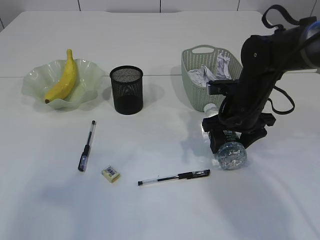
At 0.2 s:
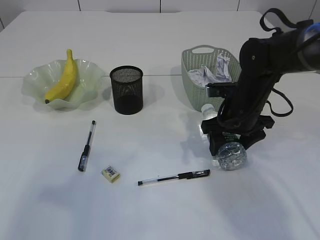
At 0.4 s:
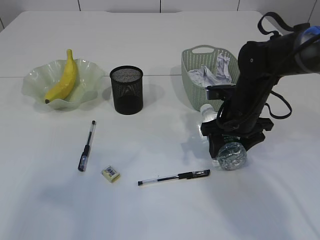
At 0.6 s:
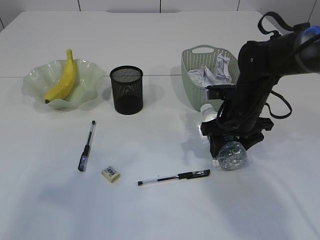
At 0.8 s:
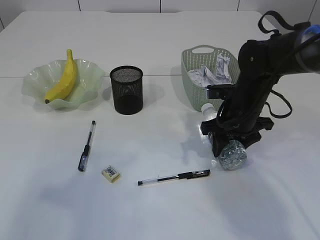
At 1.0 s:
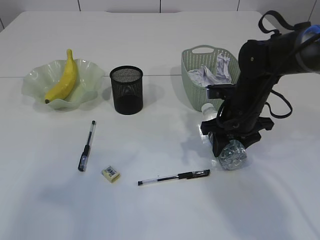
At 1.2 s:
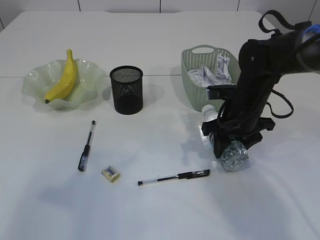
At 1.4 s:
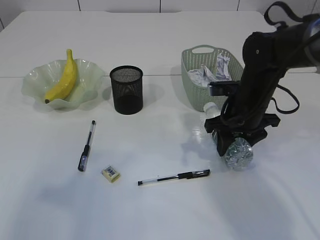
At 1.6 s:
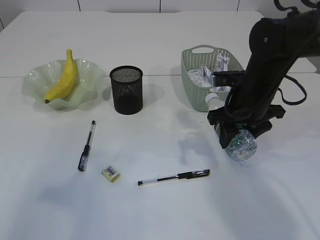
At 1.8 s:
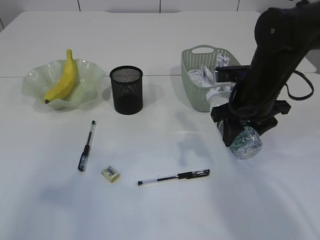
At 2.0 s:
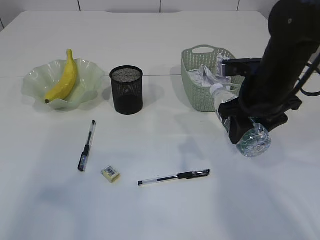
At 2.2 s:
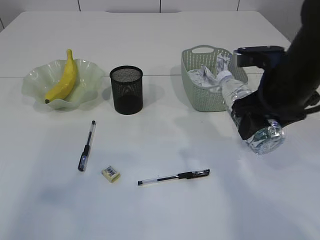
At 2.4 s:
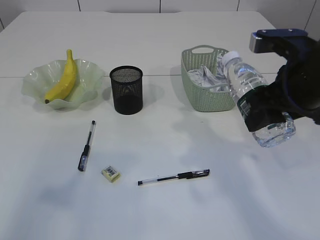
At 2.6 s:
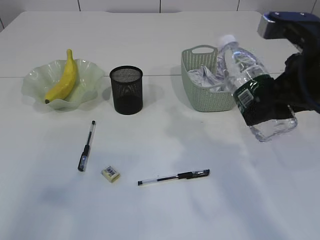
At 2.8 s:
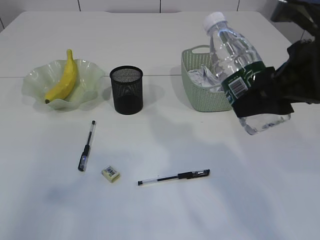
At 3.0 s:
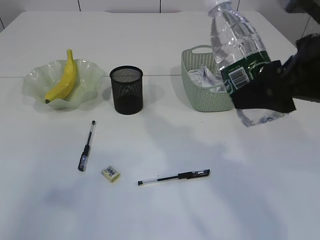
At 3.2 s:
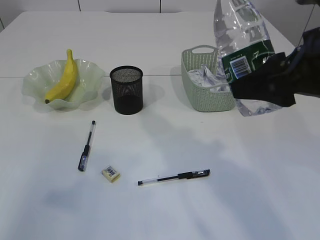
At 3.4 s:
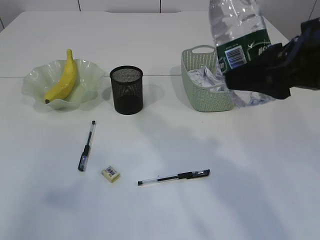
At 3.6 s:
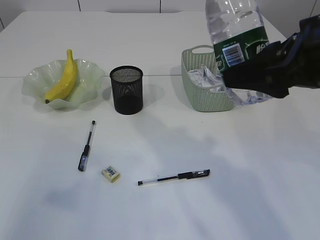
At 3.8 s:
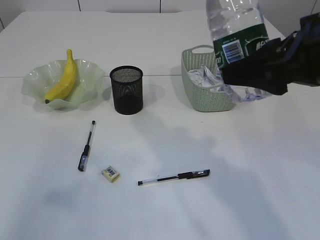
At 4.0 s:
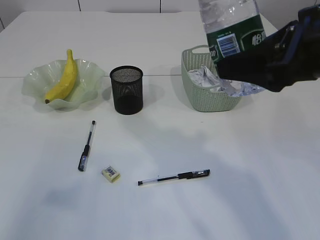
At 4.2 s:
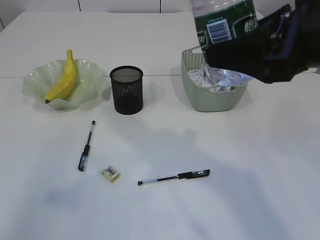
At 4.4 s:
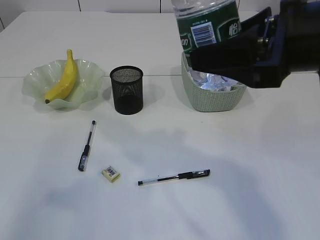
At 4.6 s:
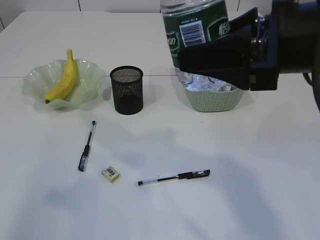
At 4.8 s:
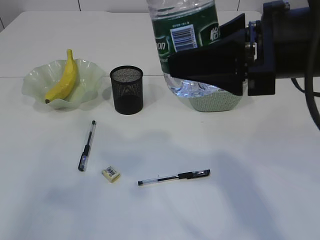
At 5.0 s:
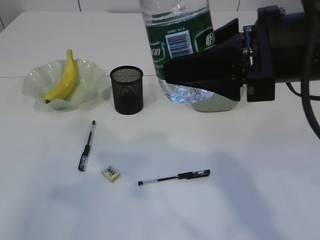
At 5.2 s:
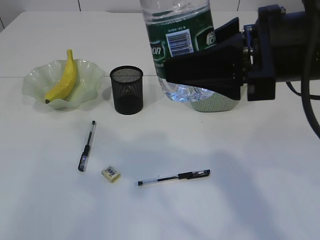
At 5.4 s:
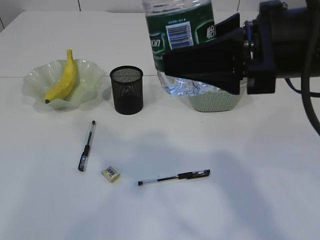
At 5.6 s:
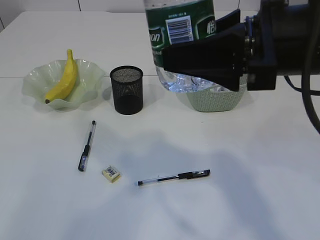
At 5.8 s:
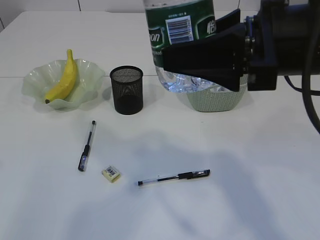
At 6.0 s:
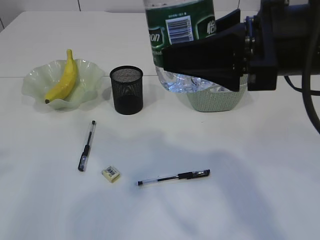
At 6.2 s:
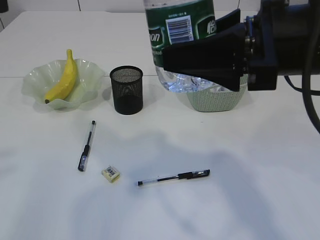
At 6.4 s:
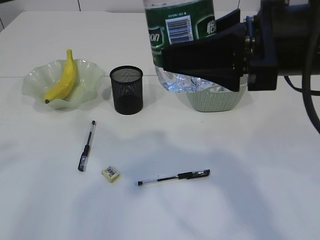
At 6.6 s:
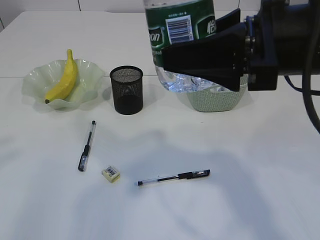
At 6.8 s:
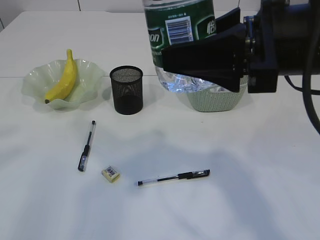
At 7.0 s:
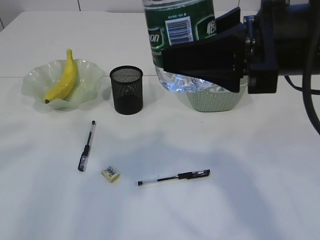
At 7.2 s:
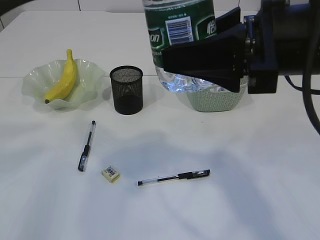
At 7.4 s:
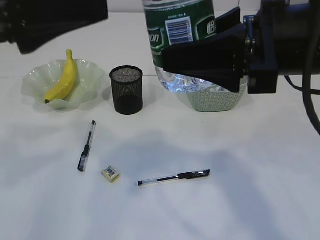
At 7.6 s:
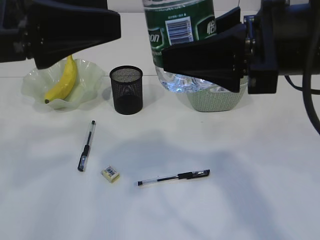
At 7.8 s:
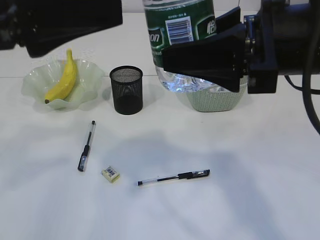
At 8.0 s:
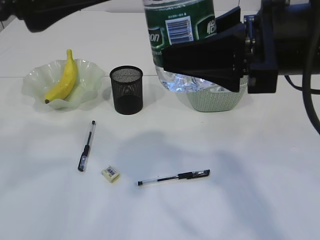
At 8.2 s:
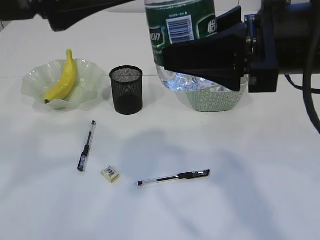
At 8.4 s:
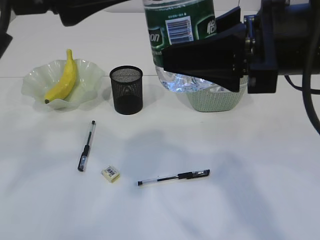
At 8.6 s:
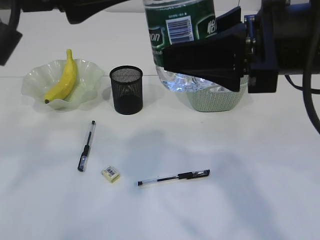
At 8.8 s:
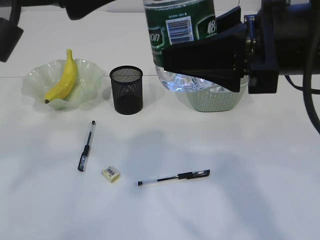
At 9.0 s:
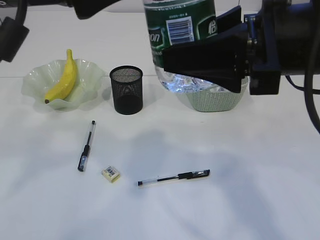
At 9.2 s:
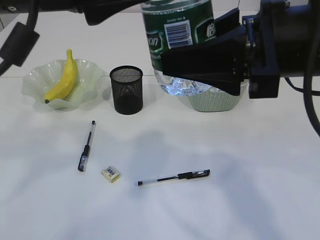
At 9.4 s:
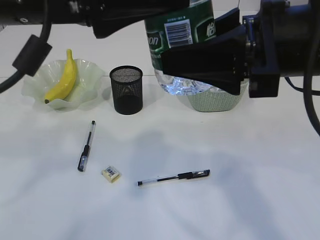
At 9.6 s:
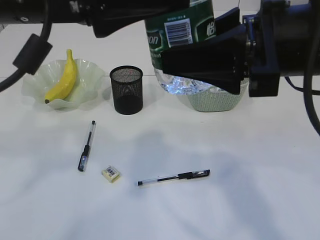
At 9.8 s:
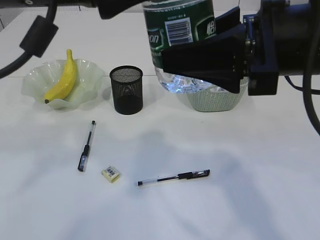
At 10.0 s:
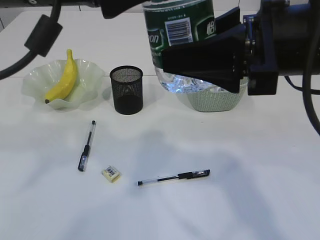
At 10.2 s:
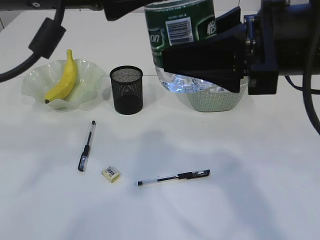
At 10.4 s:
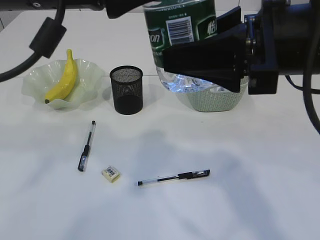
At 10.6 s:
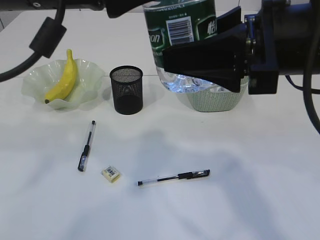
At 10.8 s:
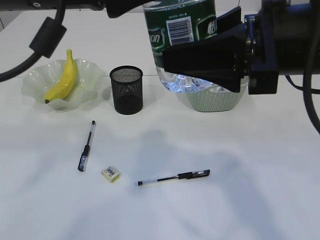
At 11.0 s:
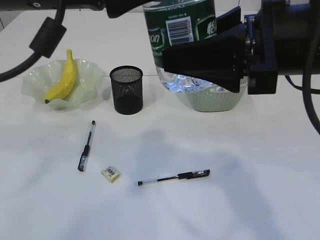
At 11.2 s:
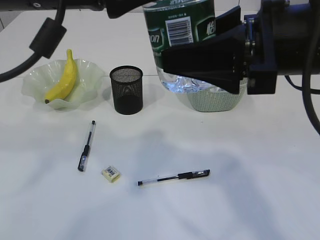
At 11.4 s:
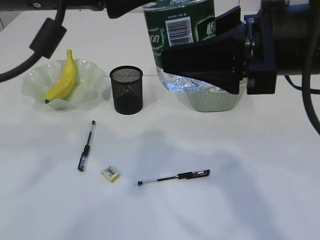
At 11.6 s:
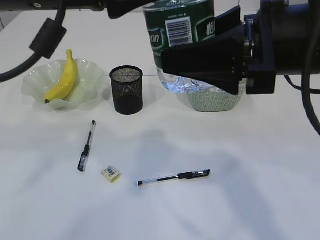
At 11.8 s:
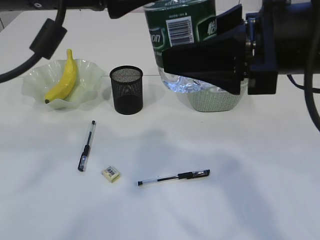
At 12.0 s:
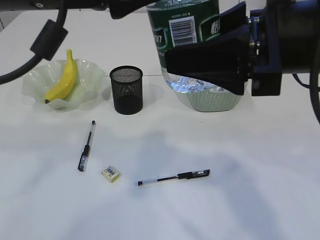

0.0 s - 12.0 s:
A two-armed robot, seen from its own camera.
Step, 0.0 s - 2.0 s: Pick up the bottle with the right arm.
0.0 s - 1.6 s: There are only small adjustments of the grippers.
1.6 s - 3.0 s: The right gripper heads backward and upward, covering about 20 cm.
4.4 s - 6.0 s: The left gripper travels to the right by approximately 5 cm.
6.0 s - 7.6 s: The left gripper shifts some 10 cm forward, downward and to the right, and opens.
7.6 s - 9.0 s: The left gripper goes some 5 cm to the right.
9.0 s - 10.4 s: The grippers make only small movements.
10.4 s - 12.0 s: Both grippers stay put.

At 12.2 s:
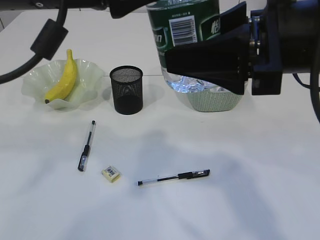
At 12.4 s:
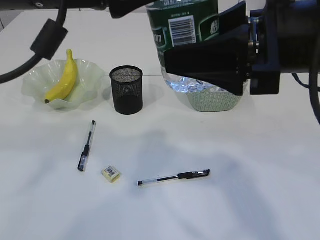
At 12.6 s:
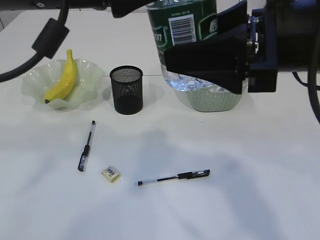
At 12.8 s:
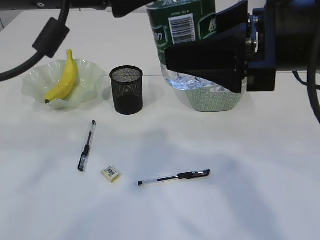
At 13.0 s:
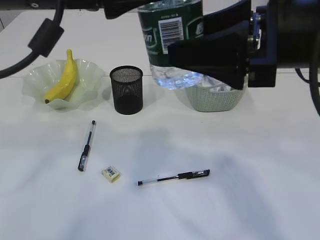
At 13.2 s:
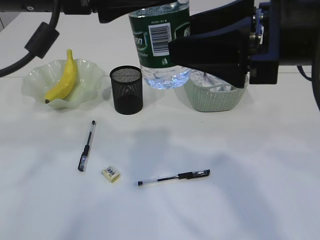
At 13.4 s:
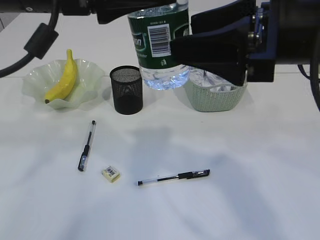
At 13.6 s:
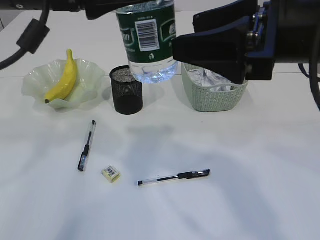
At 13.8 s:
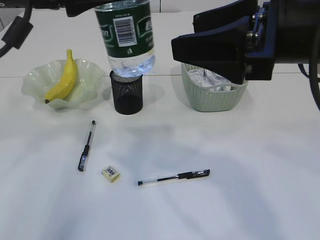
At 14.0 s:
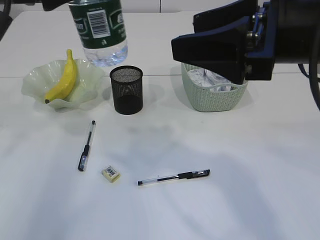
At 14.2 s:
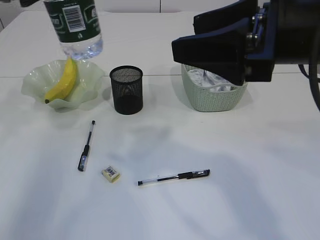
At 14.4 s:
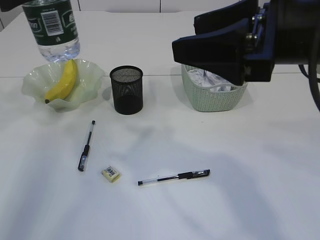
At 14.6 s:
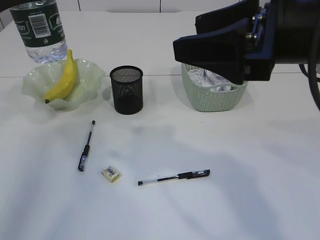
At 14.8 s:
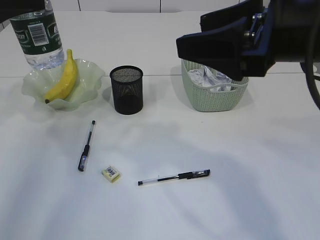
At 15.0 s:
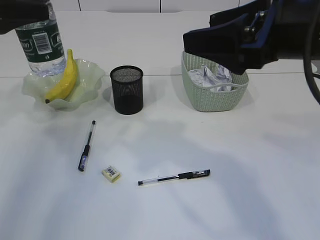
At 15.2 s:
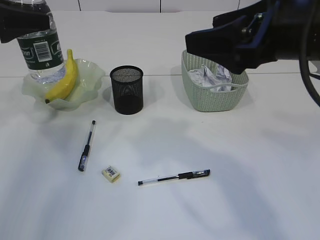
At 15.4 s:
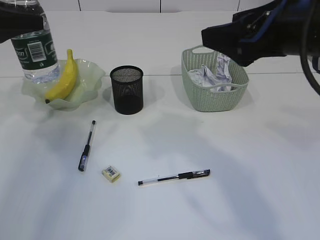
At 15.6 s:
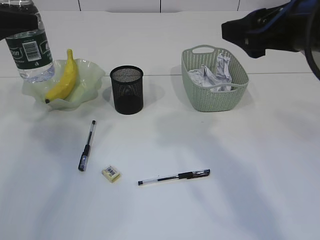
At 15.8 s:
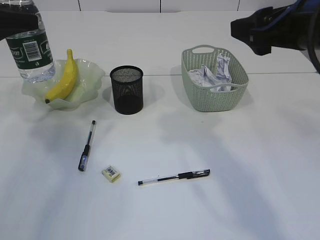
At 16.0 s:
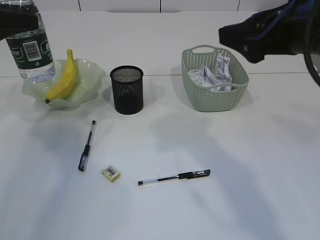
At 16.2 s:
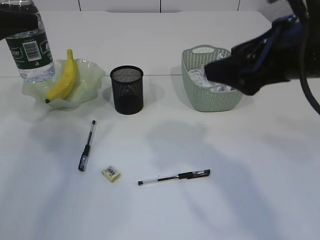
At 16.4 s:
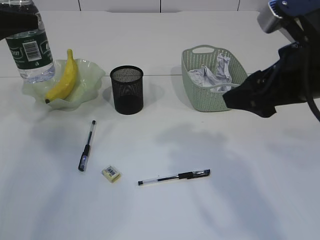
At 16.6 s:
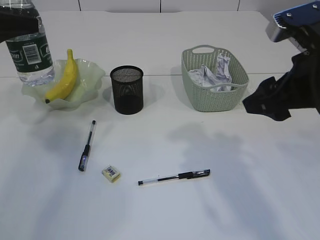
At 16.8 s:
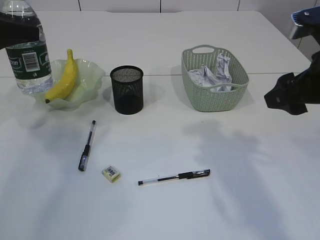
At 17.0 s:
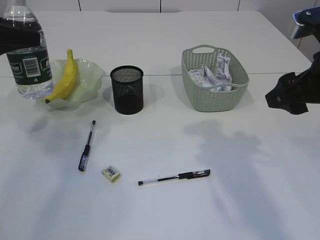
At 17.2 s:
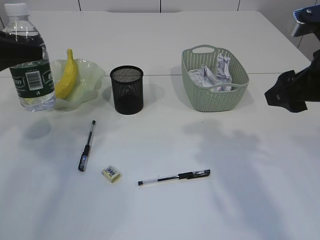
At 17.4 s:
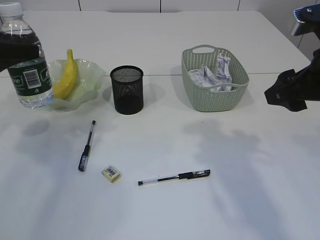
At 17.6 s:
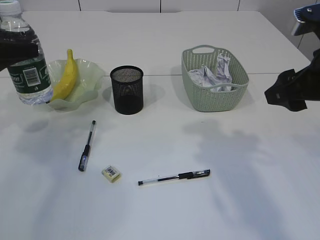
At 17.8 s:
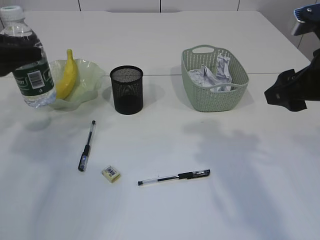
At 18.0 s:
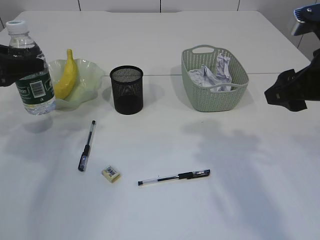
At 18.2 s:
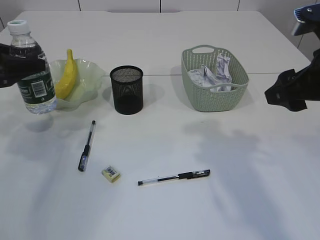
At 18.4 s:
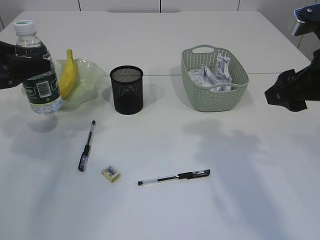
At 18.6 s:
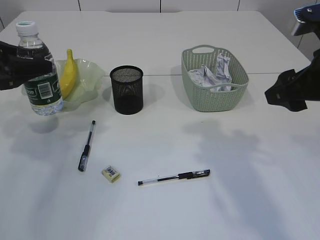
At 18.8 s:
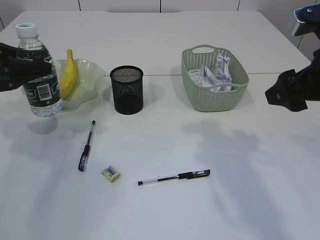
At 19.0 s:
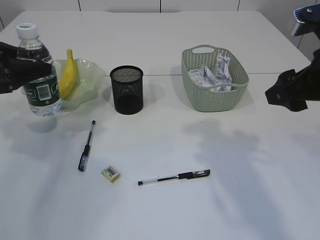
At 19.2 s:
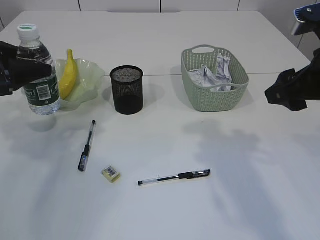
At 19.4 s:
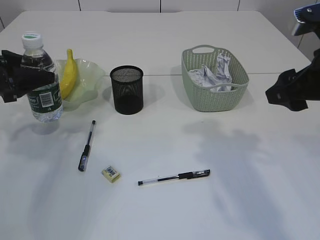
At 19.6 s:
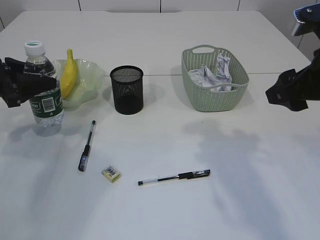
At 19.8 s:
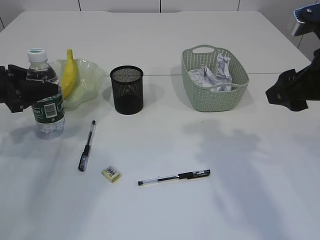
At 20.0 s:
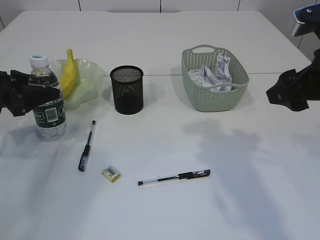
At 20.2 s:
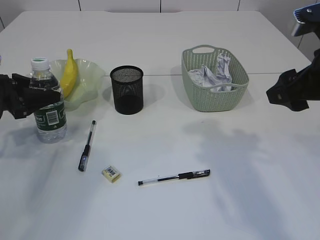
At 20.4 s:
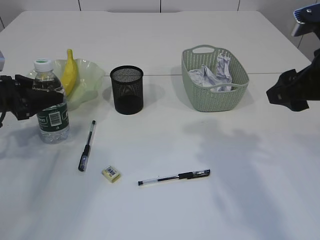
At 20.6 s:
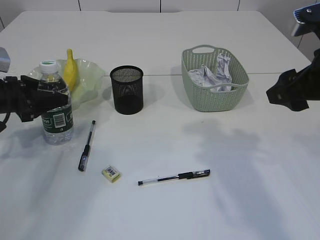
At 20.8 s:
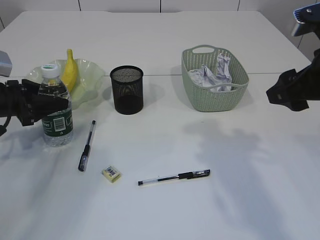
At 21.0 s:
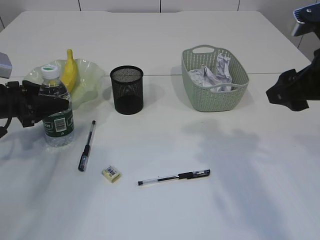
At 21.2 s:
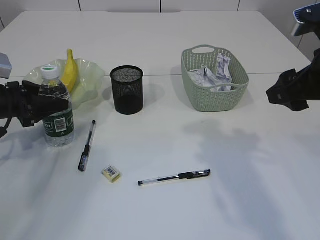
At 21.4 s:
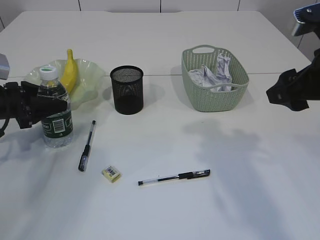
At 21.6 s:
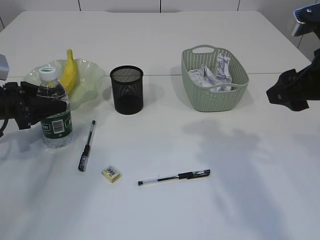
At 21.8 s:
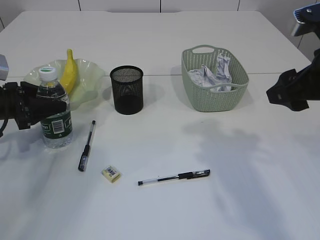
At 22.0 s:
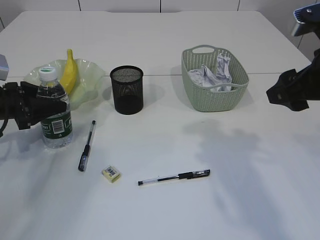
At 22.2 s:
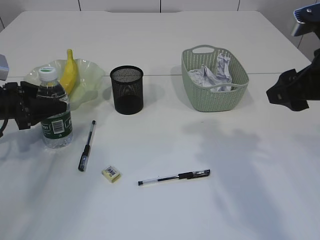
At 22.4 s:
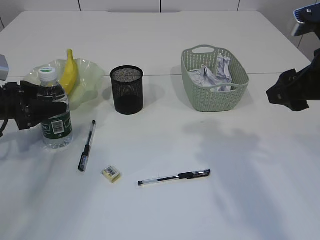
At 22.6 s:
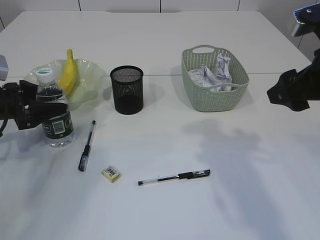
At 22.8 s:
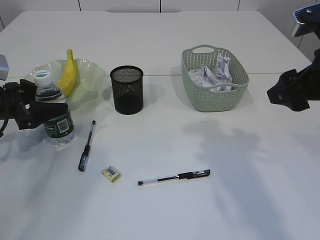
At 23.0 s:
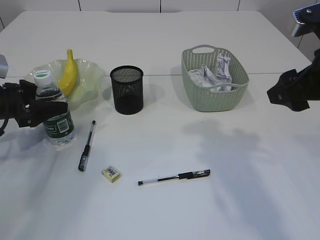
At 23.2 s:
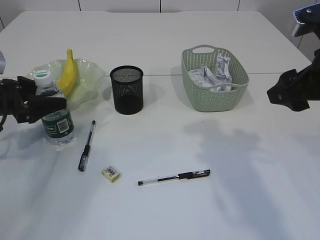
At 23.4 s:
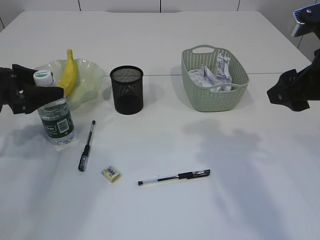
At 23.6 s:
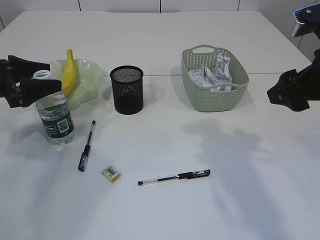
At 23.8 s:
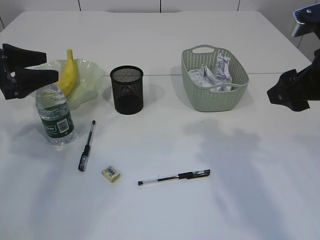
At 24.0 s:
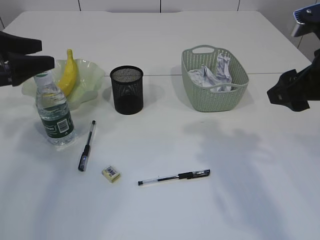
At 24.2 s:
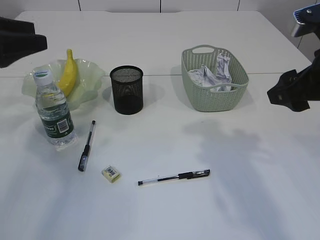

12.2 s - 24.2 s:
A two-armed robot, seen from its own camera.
Step, 13.8 s - 24.0 s: Place the bottle.
12.2 s - 13.8 s: The left gripper travels to the left by approximately 5 cm.
13.8 s - 15.2 s: The left gripper heads to the left, downward and forward, covering roughly 15 cm.
15.2 s - 16.6 s: The right gripper moves roughly 5 cm.
16.6 s - 18.2 s: The left gripper goes some 10 cm downward.
18.2 s - 19.8 s: The left gripper heads downward, covering roughly 5 cm.
19.8 s - 21.2 s: The grippers make only small movements.
21.2 s - 22.6 s: The two grippers keep their place.
22.6 s - 24.2 s: The left gripper shifts about 15 cm upward.
